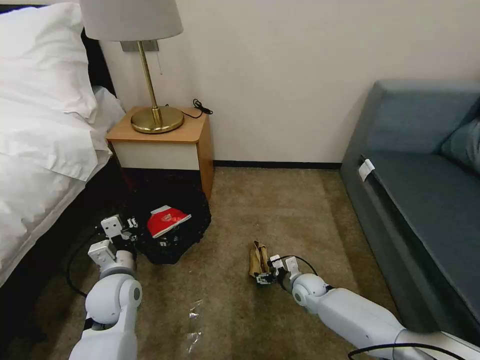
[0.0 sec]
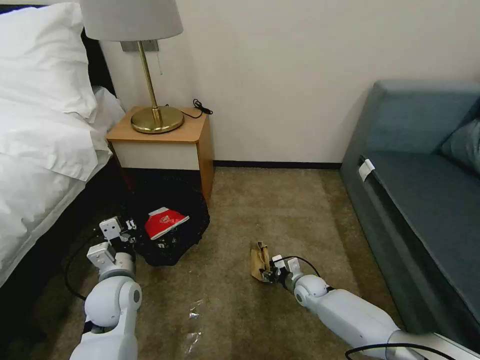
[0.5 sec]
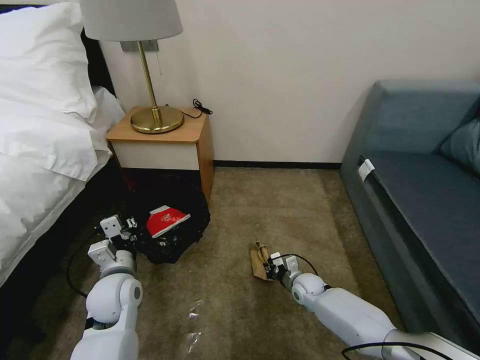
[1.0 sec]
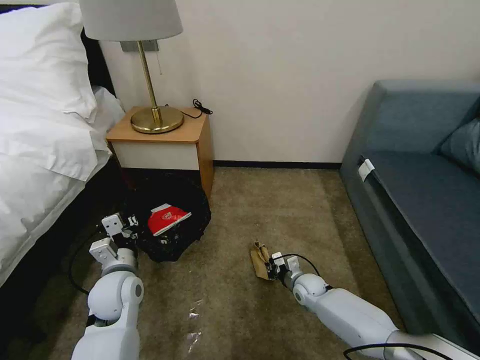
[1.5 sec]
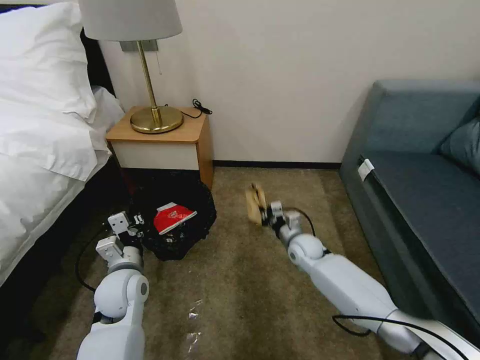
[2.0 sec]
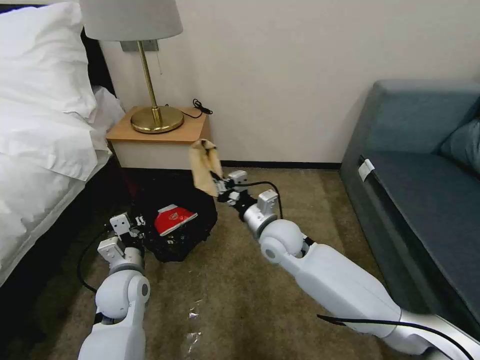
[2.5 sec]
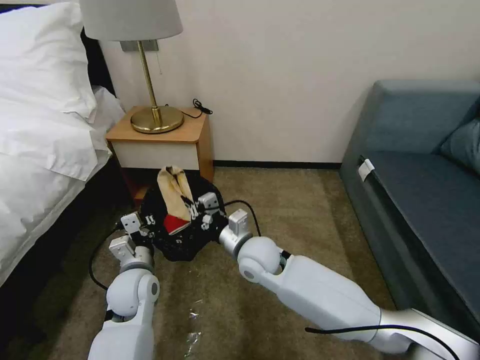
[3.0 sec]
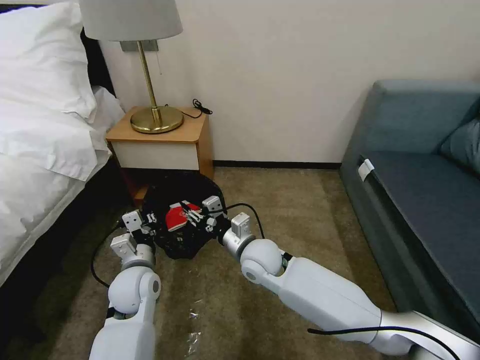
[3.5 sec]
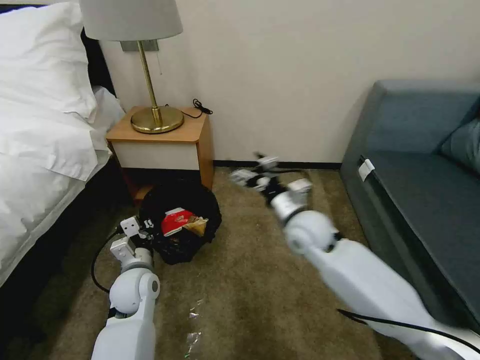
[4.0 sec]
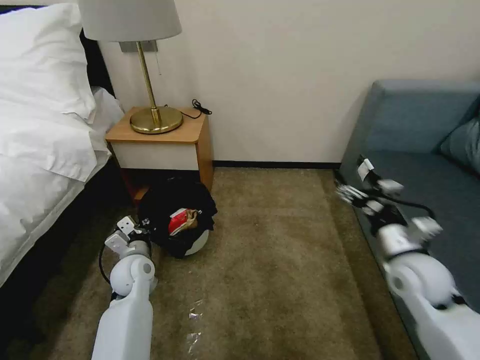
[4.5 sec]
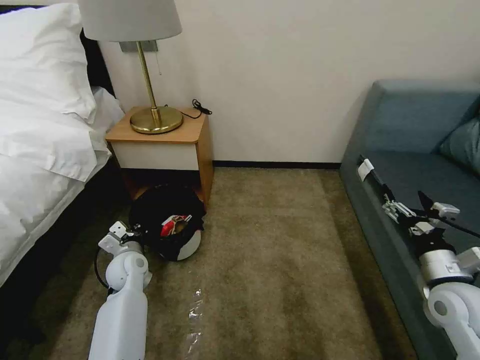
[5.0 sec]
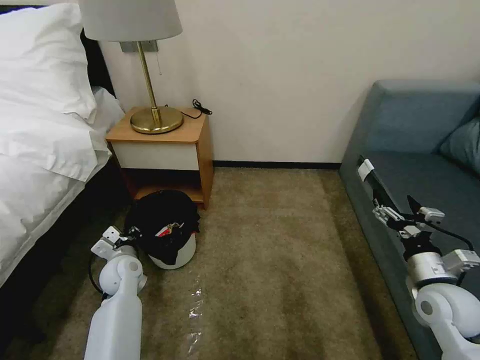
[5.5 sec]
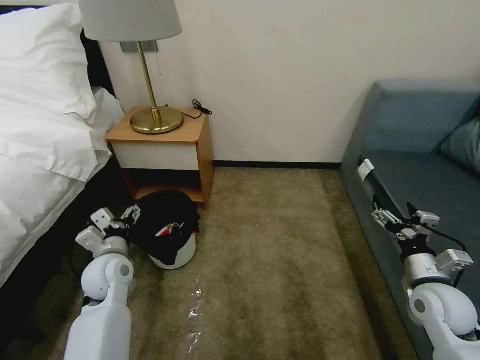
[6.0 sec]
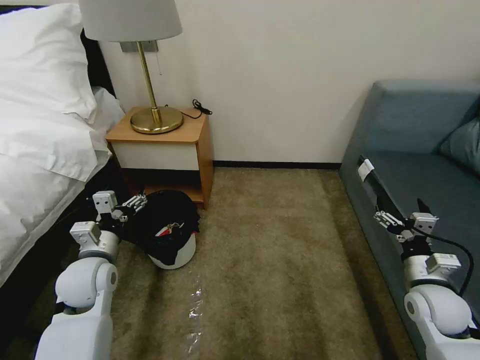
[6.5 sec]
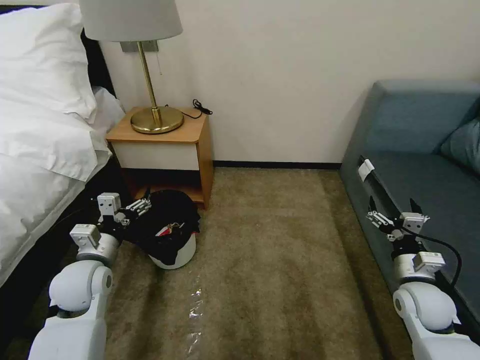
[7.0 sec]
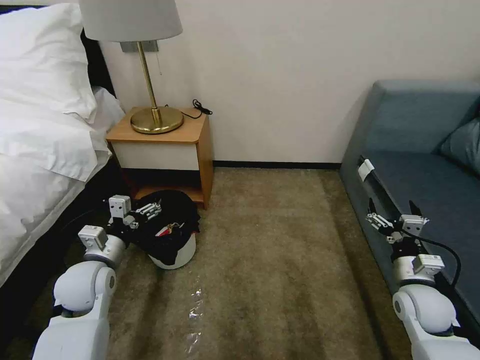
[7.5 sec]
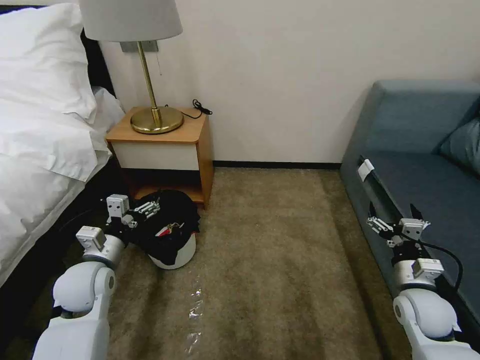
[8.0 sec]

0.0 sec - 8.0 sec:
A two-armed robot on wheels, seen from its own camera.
Task of the whole recording: Pick up the trash bin, then pick up the garbage on the floor and place it into the trash bin.
0.0 sec - 2.0 sec: The right gripper shifts approximately 15 cm upward and forward, and closes its fingers.
2.0 sec - 4.0 sec: The right gripper swings up and down, some 15 cm each way, with 2 reversals, and opens.
4.0 sec - 6.0 sec: The left gripper shifts approximately 5 cm to the left, and opens up. Meanwhile the right gripper travels to the right and backward by approximately 30 cm.
6.0 sec - 8.0 sec: The left gripper moves some 5 cm.

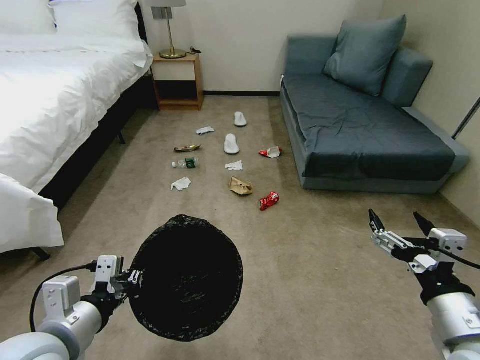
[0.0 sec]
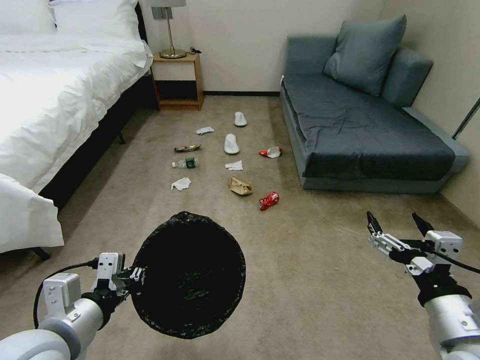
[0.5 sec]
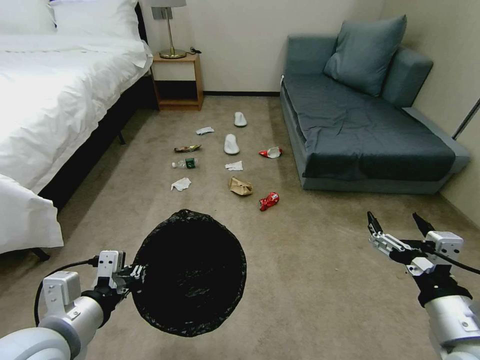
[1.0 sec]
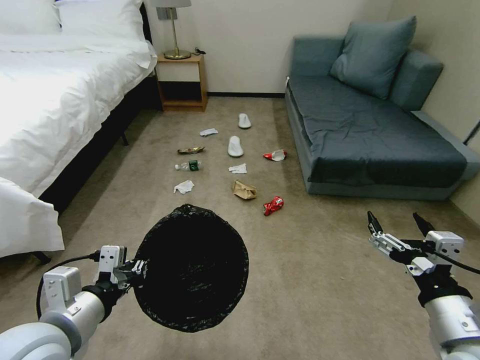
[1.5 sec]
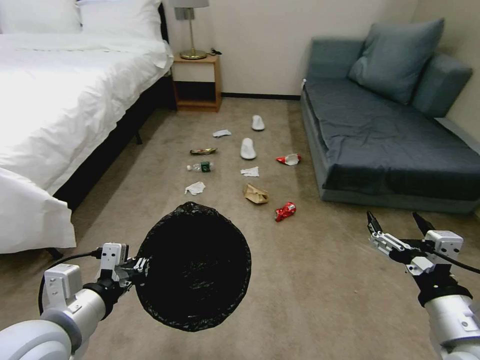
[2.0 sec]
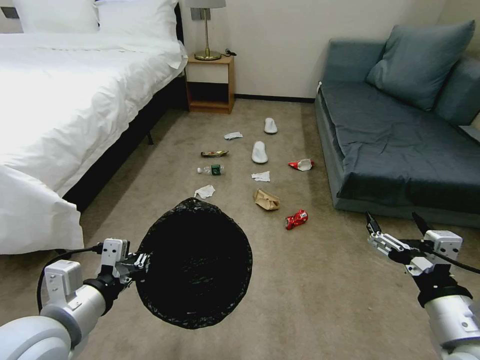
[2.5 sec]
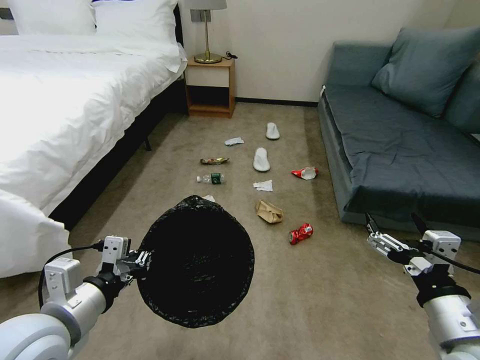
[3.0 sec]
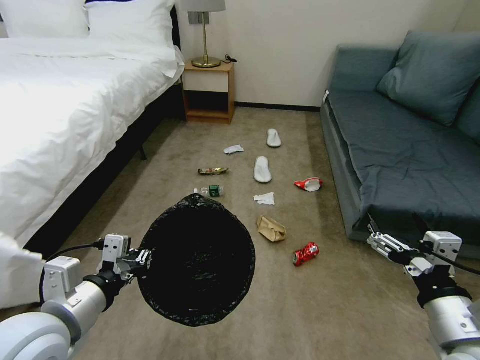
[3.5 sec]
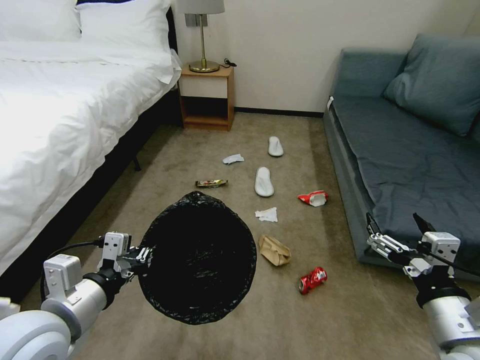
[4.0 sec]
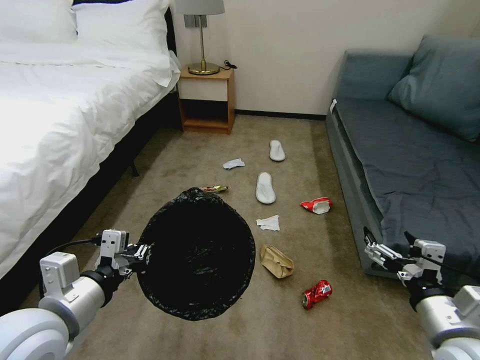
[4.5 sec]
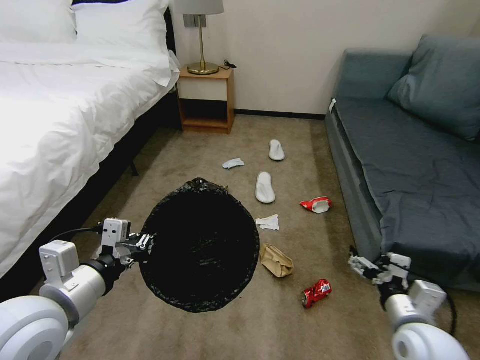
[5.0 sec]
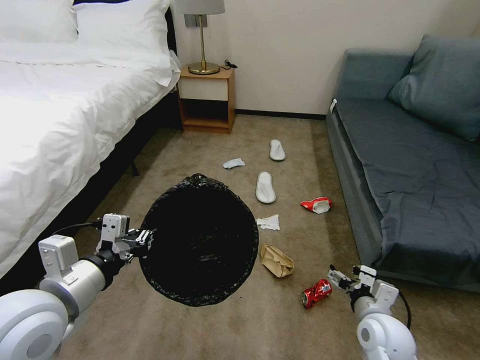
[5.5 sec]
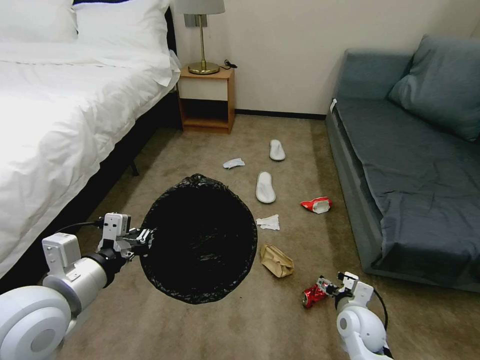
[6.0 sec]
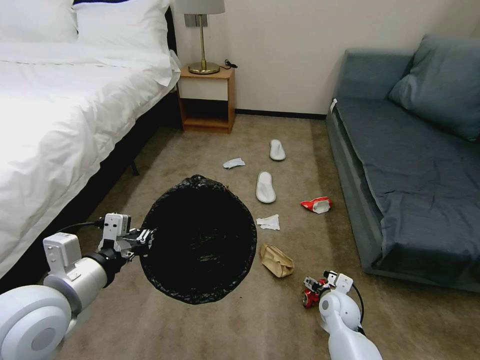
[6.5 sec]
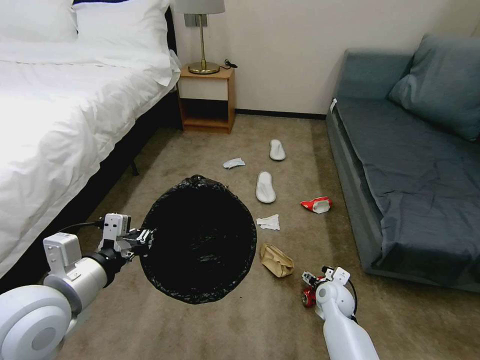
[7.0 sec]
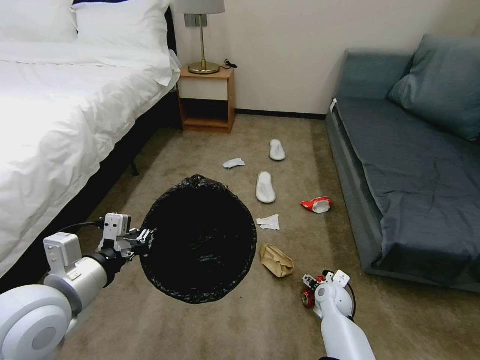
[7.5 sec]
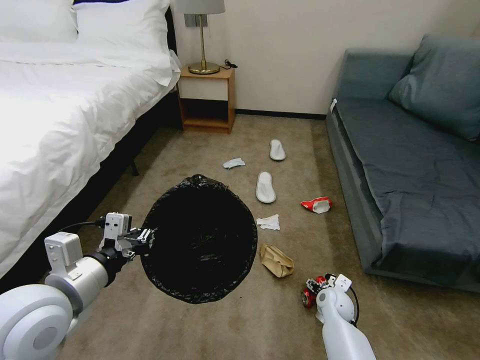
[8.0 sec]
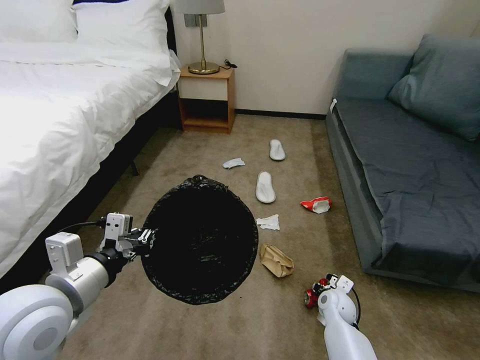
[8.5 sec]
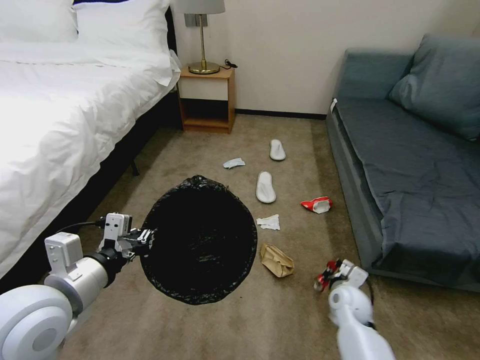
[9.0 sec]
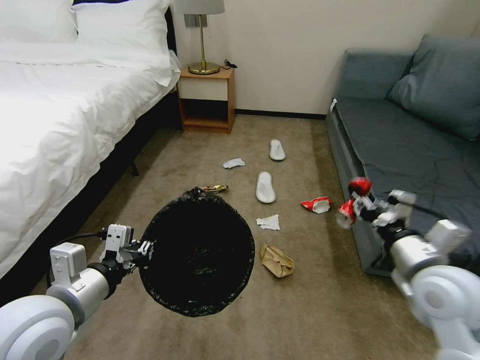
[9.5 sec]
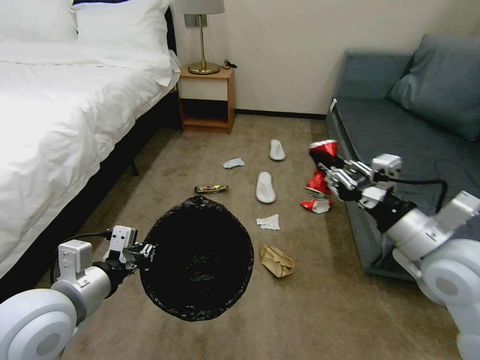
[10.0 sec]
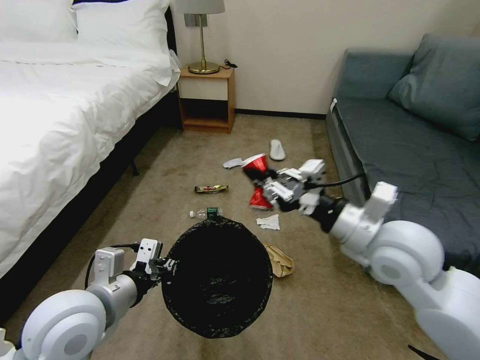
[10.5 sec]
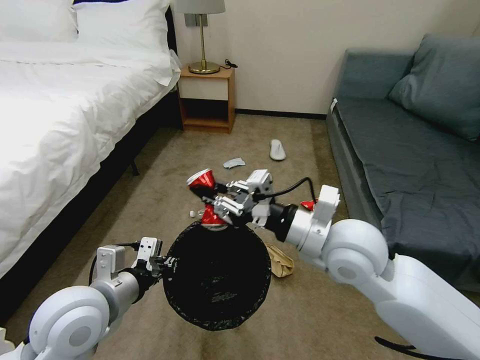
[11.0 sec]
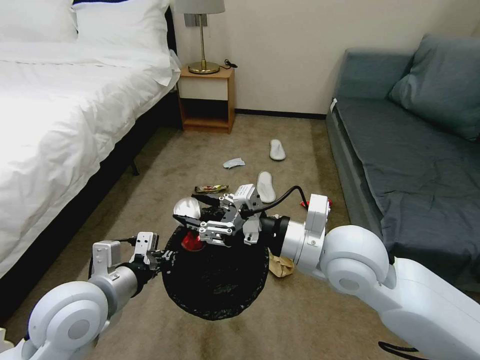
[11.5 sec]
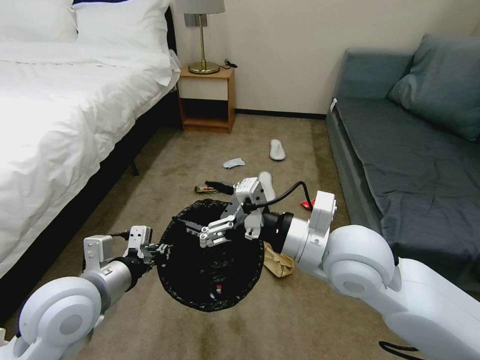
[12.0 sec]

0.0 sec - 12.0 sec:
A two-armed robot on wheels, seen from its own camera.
Task of the whole recording: Pick up the trash bin, then pick up the garbage on the floor and place it into the trash bin.
4.0 sec - 6.0 sec: The right gripper heads downward and forward, covering approximately 25 cm.
6.0 sec - 8.0 sec: The right gripper heads downward and forward, covering roughly 10 cm.
8.0 sec - 10.0 sec: The right gripper is displaced upward by roughly 40 cm, and closes.
10.0 sec - 12.0 sec: The right gripper shifts about 15 cm to the left, and opens up.

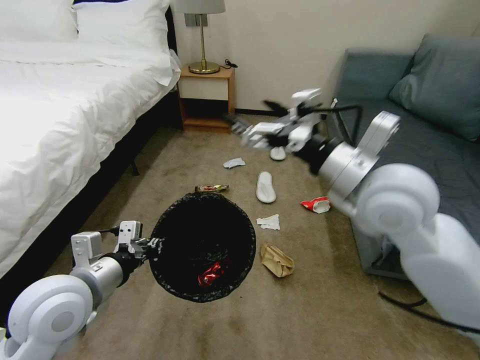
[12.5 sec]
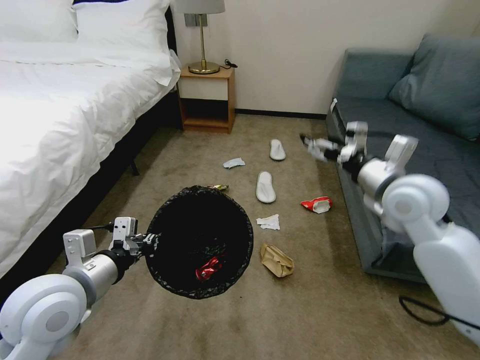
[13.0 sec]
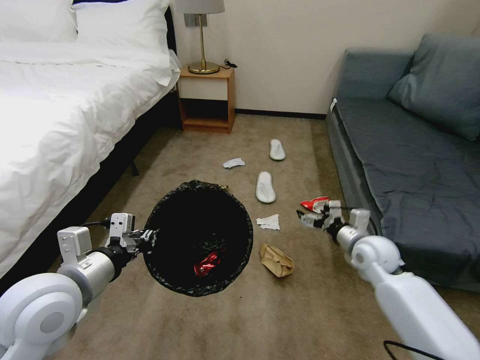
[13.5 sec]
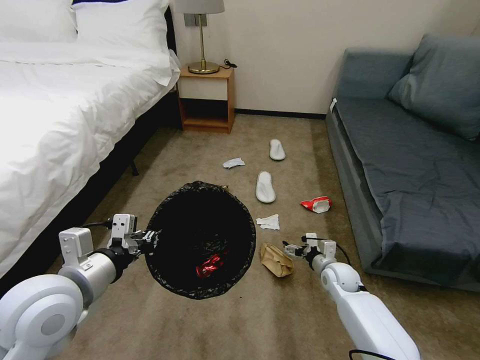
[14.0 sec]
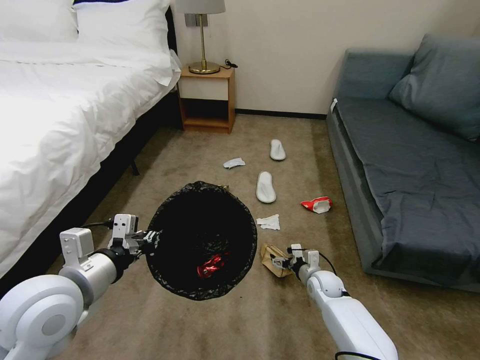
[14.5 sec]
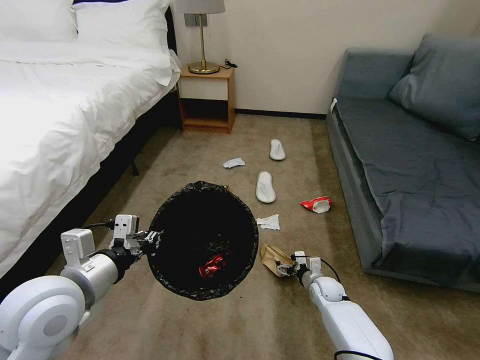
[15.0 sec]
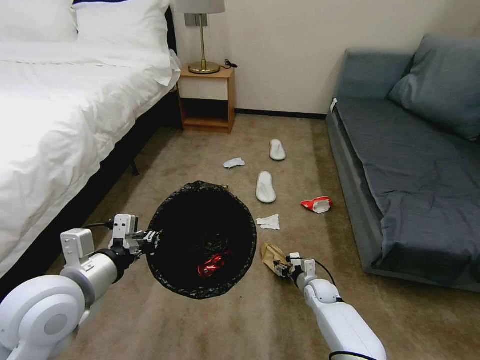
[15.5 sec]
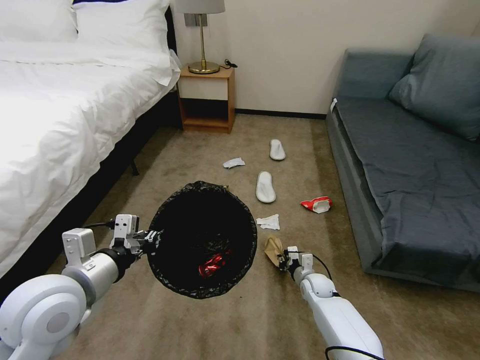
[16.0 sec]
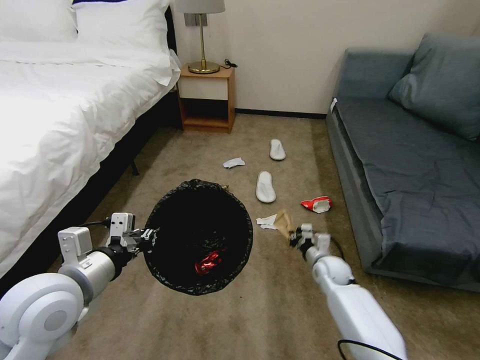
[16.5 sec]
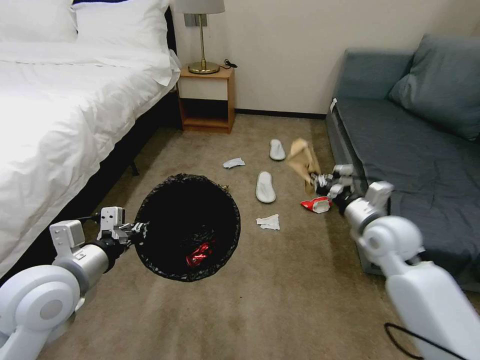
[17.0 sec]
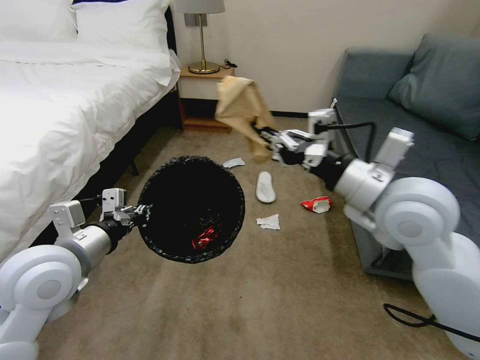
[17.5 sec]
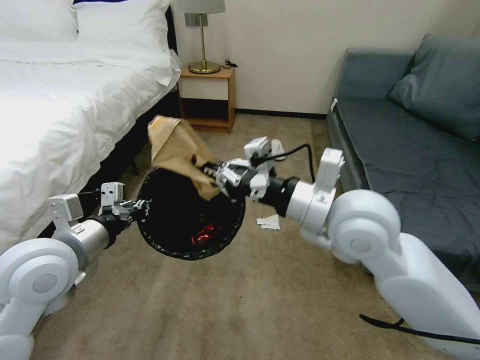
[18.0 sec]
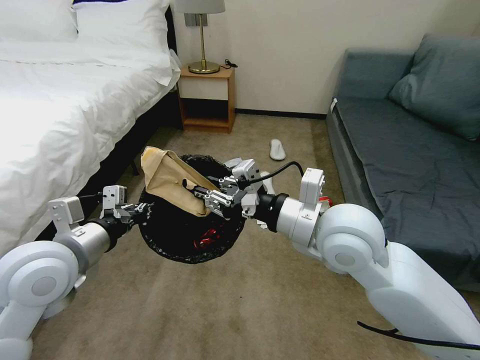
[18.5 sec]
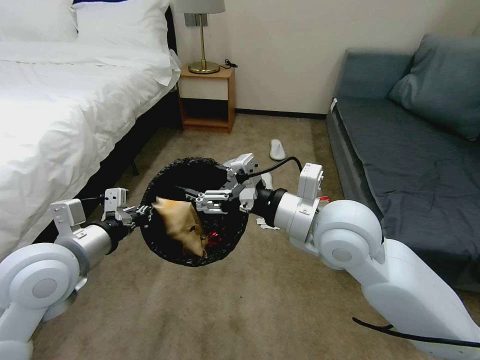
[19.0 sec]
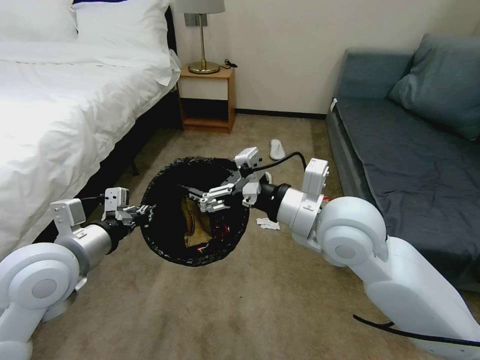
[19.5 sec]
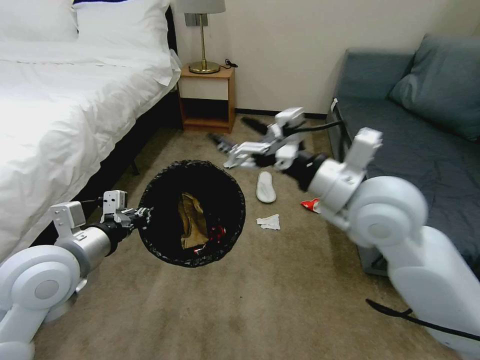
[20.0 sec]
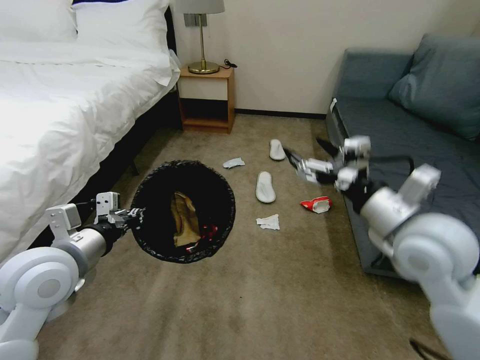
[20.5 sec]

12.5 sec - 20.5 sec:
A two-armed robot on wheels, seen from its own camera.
Task of the whole recording: Pick up the trash bin, then pick up the garbage on the floor and place it into the trash bin.
12.5 sec - 14.5 sec: The right gripper is displaced downward by about 50 cm.
14.5 sec - 16.5 sec: The right gripper closes up.
16.5 sec - 18.5 sec: The right gripper moves upward, approximately 35 cm.
18.5 sec - 20.5 sec: The right gripper moves to the right, about 10 cm, and opens.
